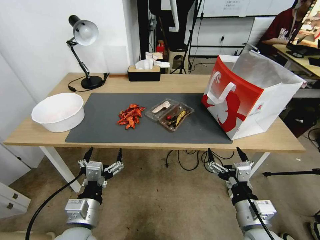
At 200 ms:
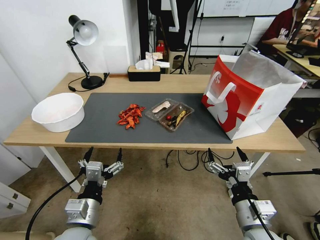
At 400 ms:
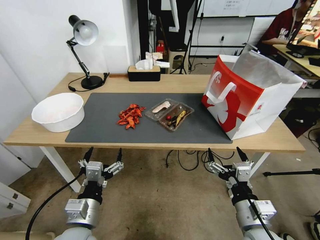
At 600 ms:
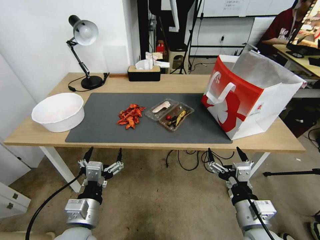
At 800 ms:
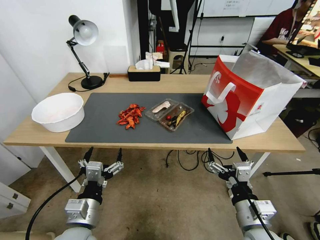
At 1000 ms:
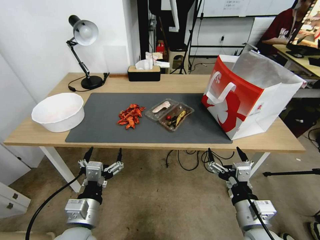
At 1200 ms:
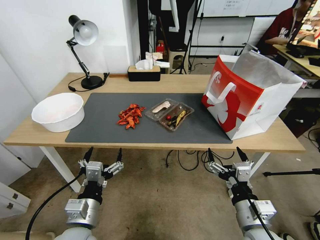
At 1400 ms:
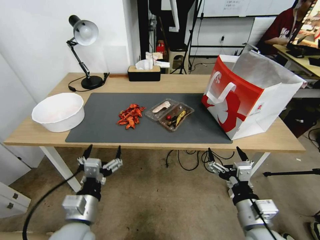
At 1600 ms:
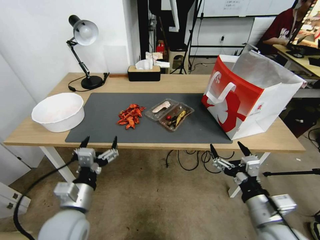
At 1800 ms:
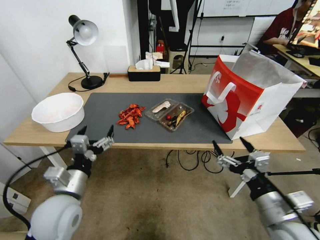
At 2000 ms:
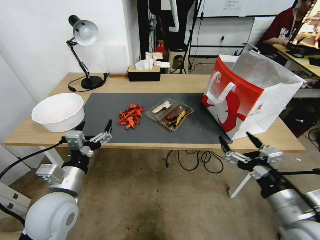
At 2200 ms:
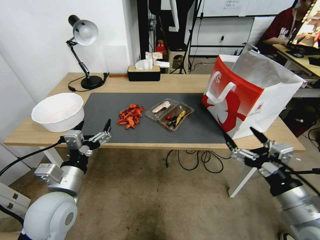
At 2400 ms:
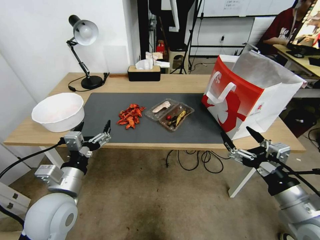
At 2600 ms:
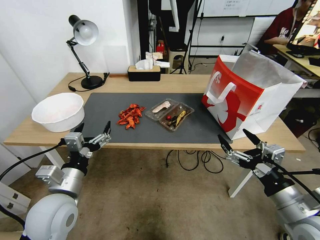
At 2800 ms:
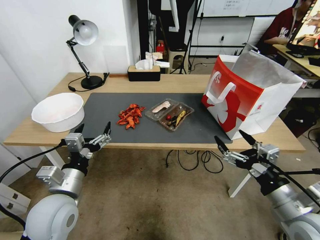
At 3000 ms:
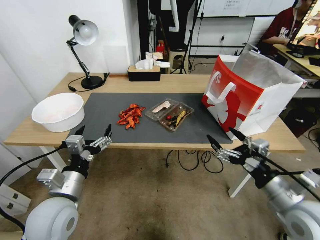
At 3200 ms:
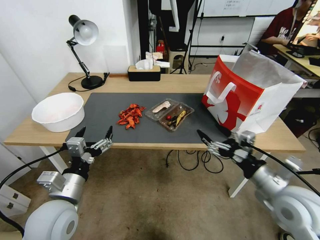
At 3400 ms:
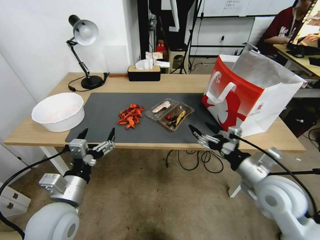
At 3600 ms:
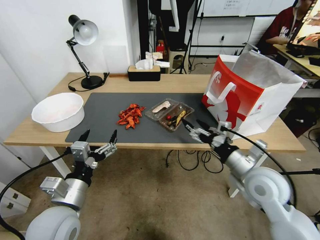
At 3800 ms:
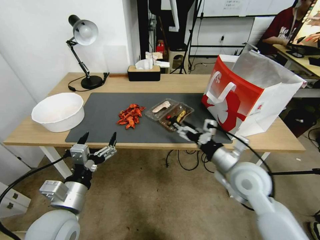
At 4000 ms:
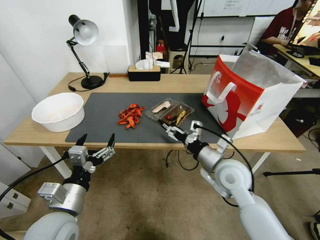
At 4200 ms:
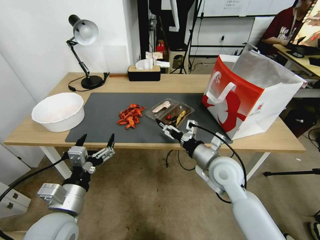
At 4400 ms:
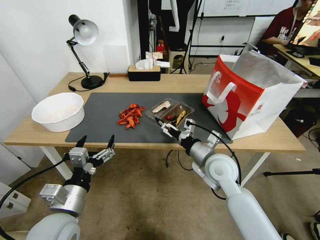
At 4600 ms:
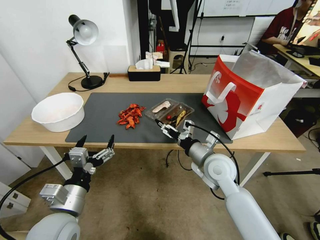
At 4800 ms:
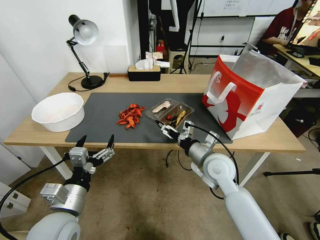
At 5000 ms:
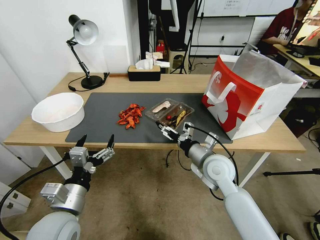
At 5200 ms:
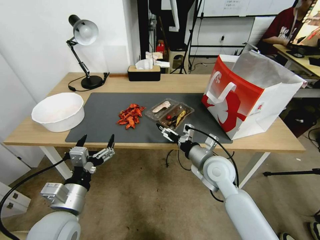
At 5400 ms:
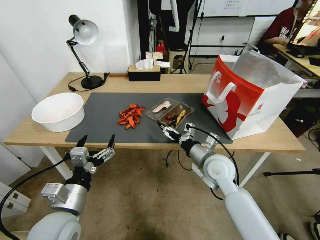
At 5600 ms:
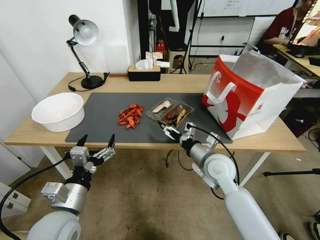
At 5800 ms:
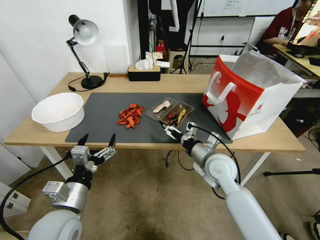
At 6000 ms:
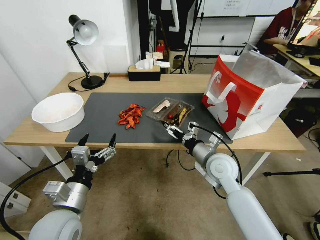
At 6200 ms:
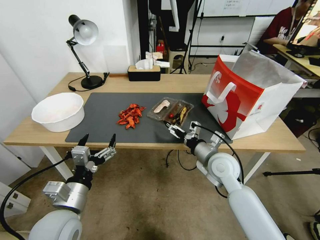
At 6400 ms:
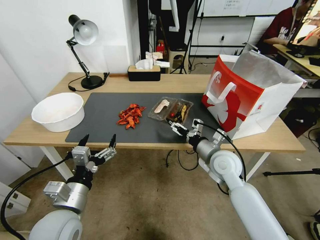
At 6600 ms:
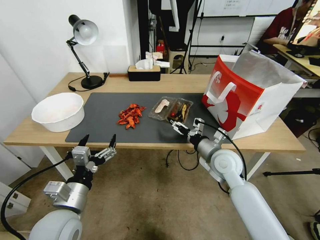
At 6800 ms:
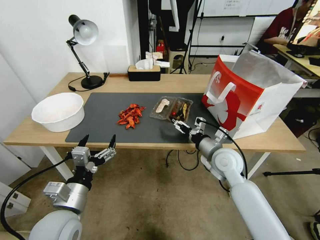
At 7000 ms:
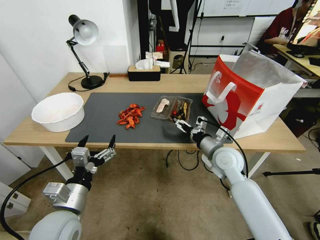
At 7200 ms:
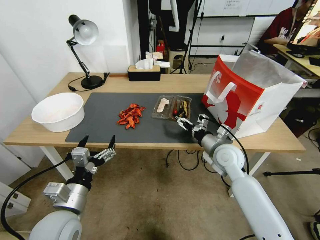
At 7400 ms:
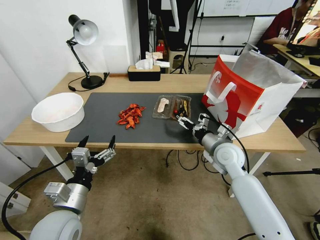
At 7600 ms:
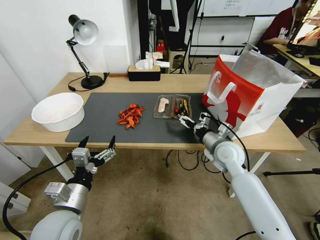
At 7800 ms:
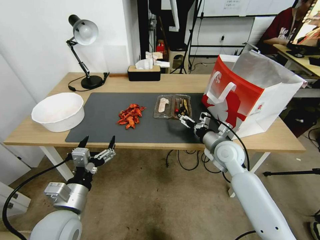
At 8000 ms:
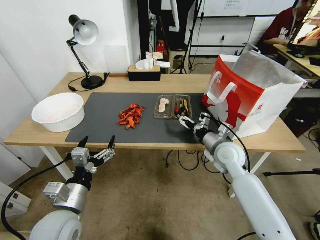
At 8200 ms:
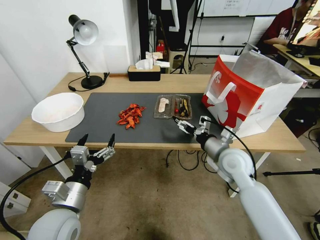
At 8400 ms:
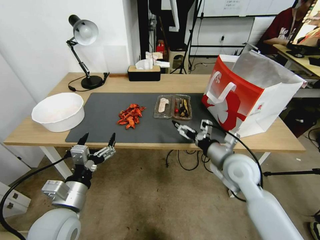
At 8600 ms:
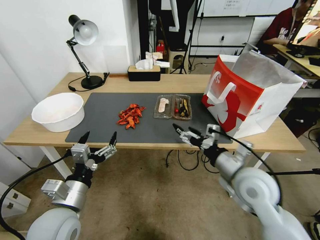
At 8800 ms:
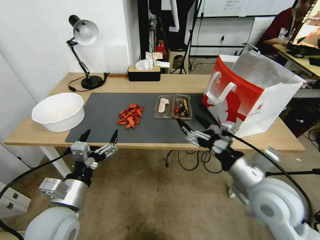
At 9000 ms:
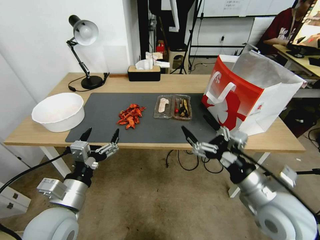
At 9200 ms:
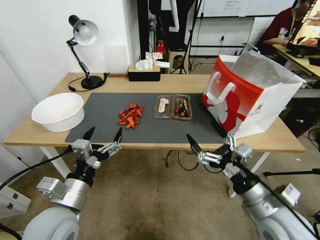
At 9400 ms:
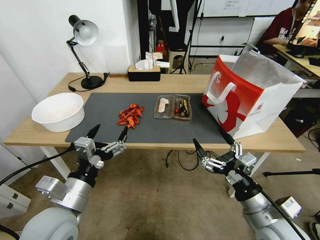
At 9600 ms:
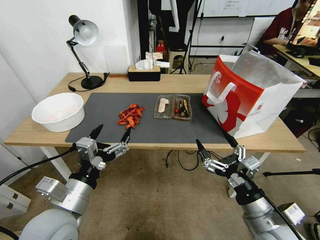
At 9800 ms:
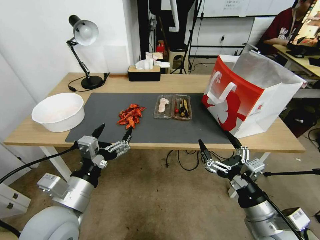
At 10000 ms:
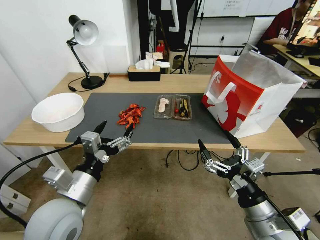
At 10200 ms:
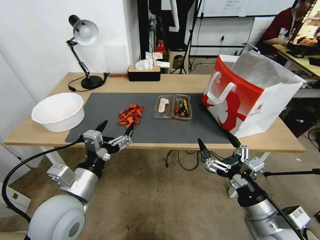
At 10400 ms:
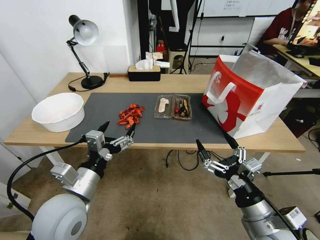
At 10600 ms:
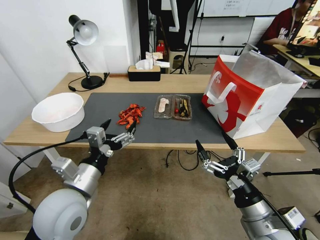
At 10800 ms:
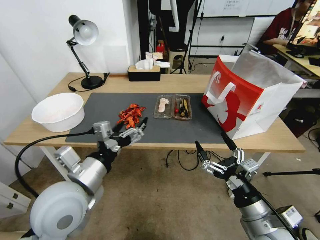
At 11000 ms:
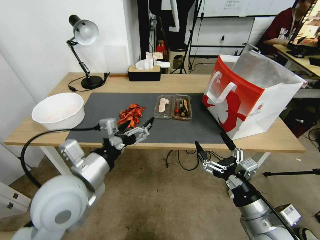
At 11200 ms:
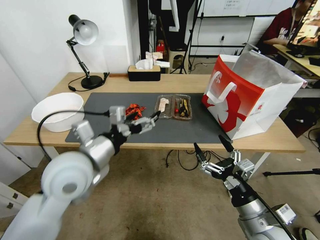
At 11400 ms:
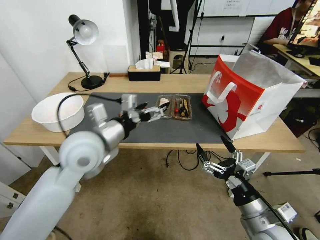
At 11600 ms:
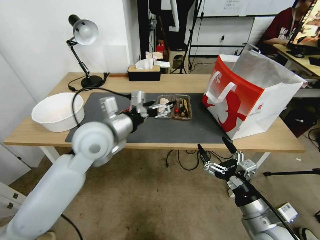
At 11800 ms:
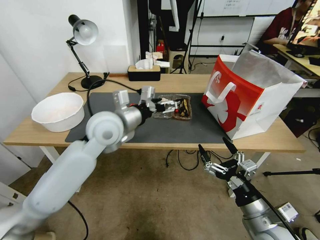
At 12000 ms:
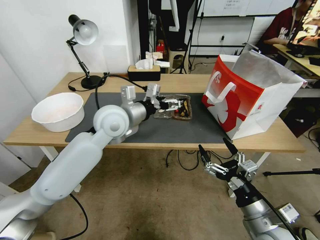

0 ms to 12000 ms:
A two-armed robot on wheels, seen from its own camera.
1600 ms to 3000 ms: The right gripper shifts roughly 5 cm to the right.
3000 ms to 4400 ms: The right gripper travels forward and to the left by approximately 20 cm.
4400 ms to 6000 ms: The grippers make only small movements.
6000 ms to 7600 ms: The right gripper moves roughly 5 cm.
7600 ms to 9000 ms: The right gripper shifts about 20 cm backward.
9000 ms to 10400 ms: The right gripper shifts about 5 cm backward.
10400 ms to 12000 ms: The left gripper shifts roughly 20 cm forward.

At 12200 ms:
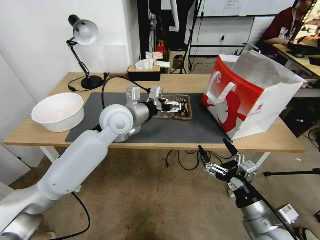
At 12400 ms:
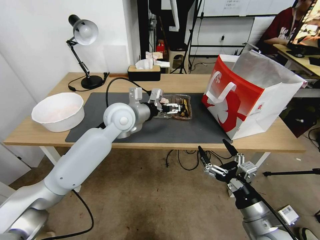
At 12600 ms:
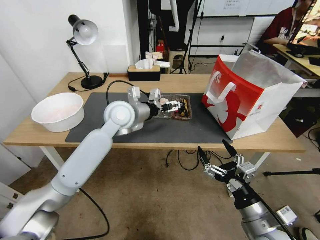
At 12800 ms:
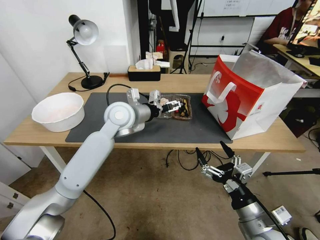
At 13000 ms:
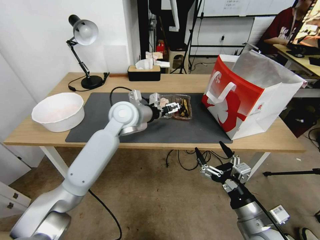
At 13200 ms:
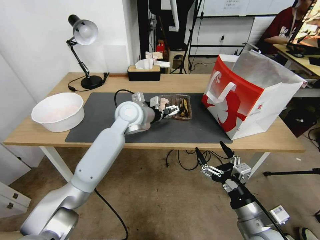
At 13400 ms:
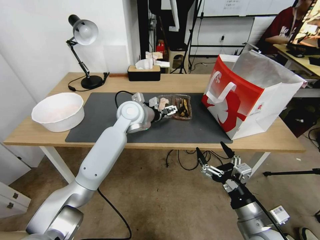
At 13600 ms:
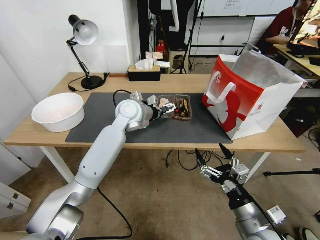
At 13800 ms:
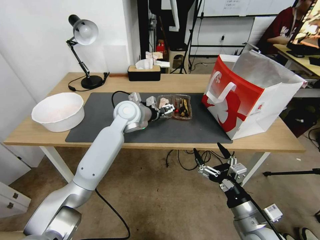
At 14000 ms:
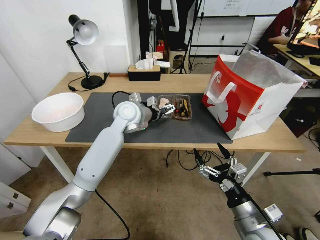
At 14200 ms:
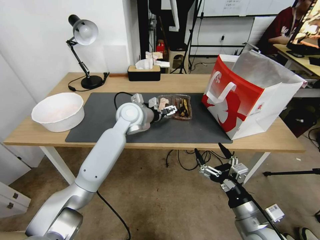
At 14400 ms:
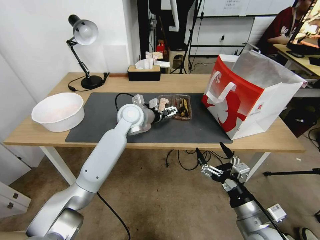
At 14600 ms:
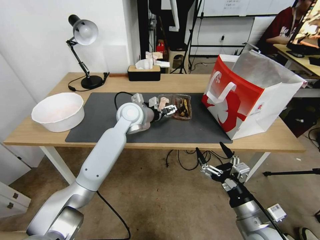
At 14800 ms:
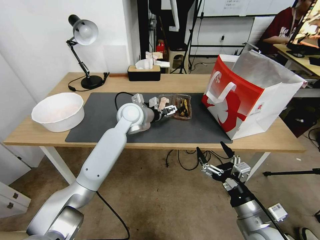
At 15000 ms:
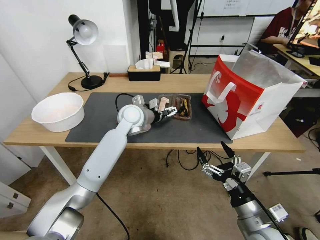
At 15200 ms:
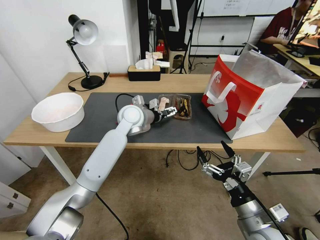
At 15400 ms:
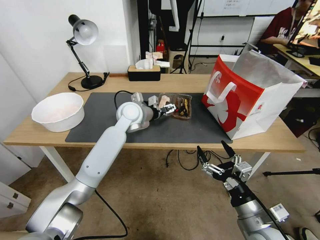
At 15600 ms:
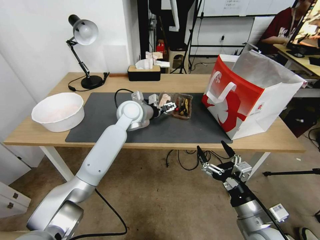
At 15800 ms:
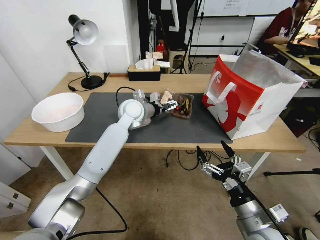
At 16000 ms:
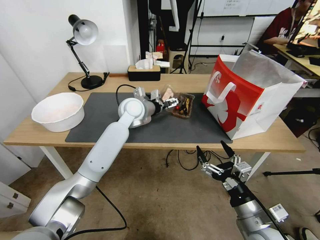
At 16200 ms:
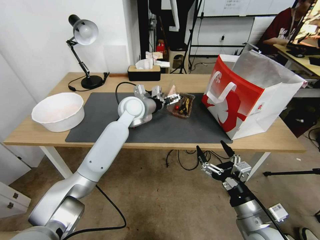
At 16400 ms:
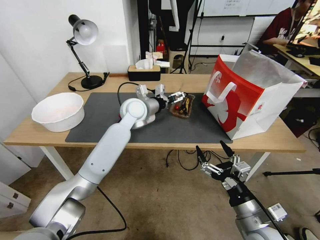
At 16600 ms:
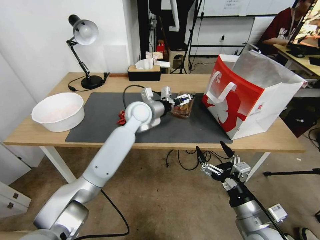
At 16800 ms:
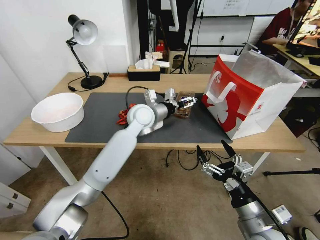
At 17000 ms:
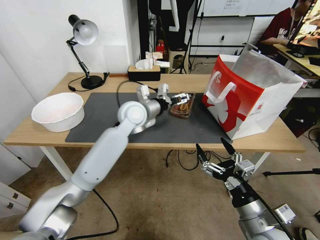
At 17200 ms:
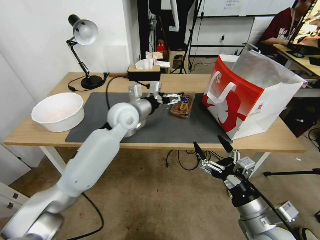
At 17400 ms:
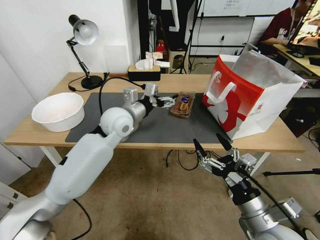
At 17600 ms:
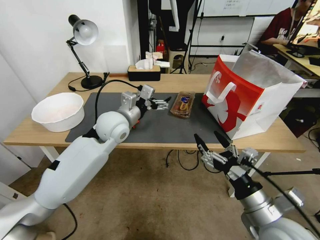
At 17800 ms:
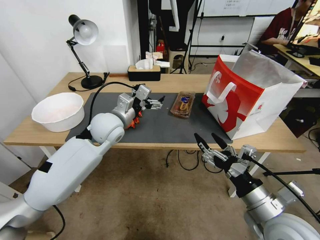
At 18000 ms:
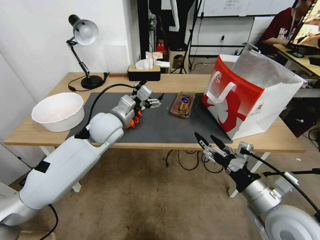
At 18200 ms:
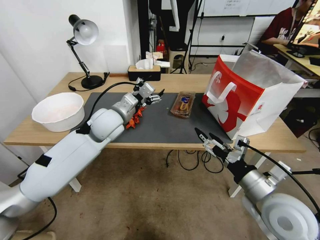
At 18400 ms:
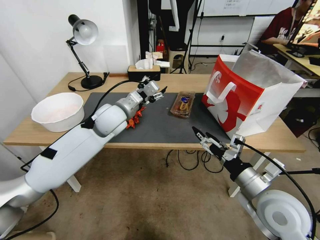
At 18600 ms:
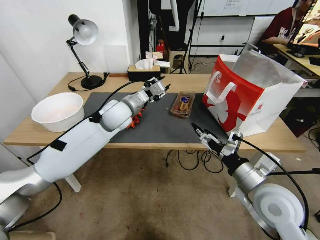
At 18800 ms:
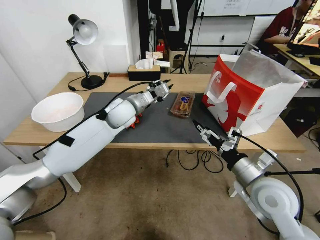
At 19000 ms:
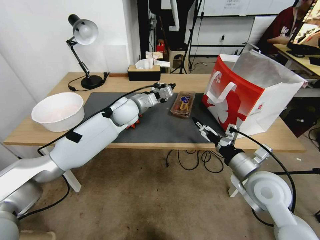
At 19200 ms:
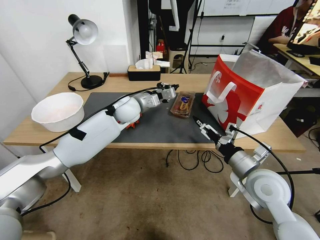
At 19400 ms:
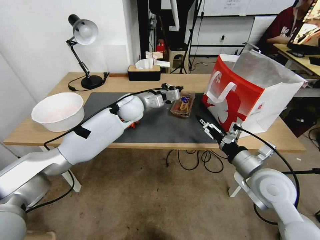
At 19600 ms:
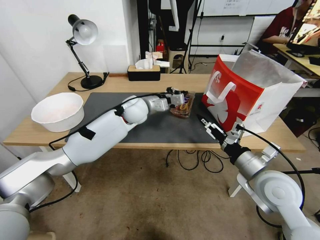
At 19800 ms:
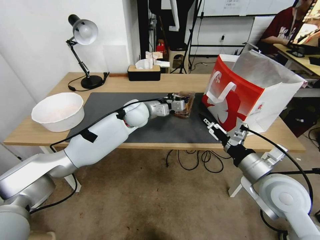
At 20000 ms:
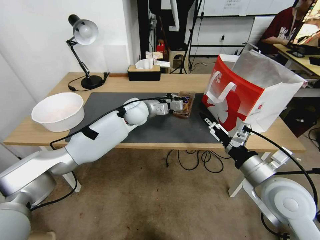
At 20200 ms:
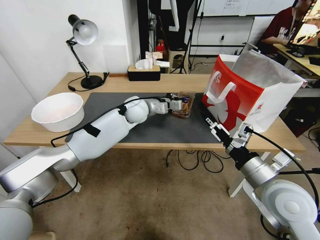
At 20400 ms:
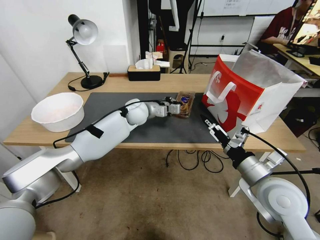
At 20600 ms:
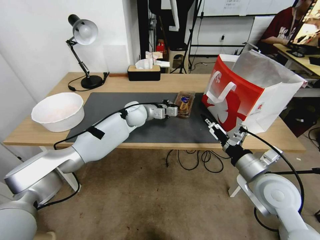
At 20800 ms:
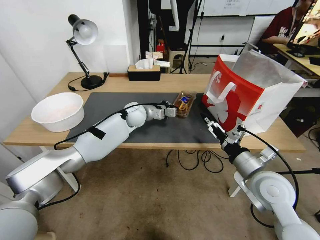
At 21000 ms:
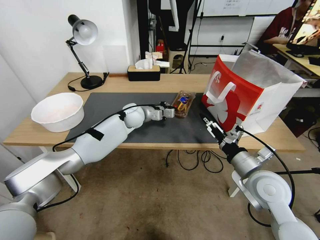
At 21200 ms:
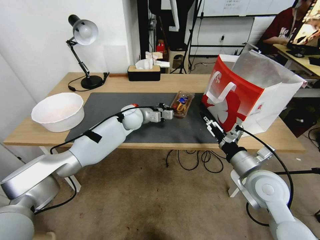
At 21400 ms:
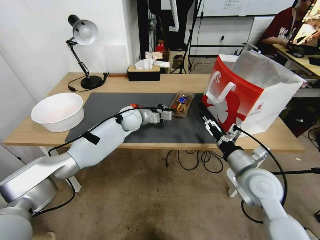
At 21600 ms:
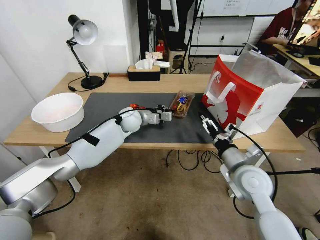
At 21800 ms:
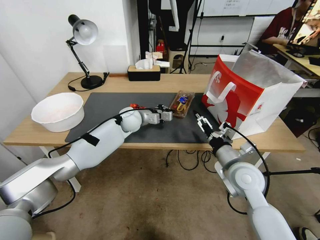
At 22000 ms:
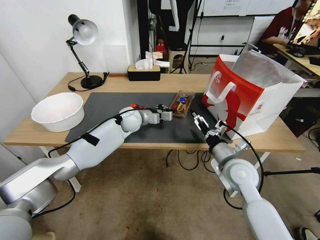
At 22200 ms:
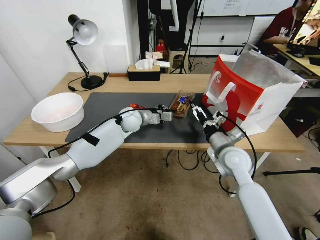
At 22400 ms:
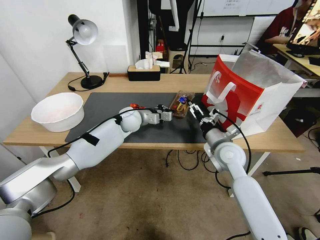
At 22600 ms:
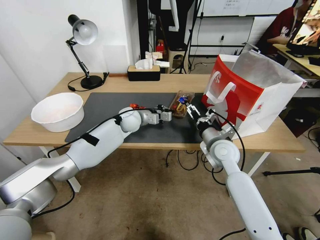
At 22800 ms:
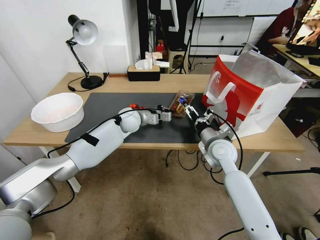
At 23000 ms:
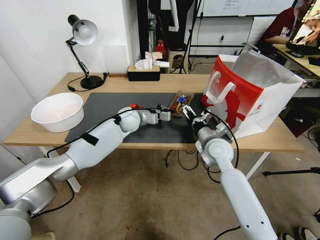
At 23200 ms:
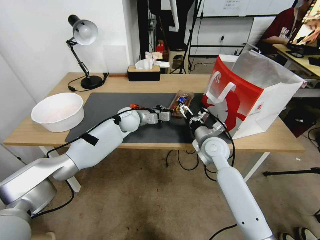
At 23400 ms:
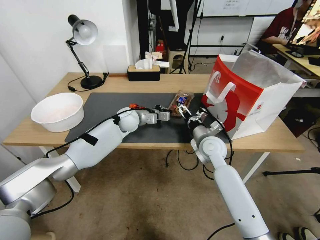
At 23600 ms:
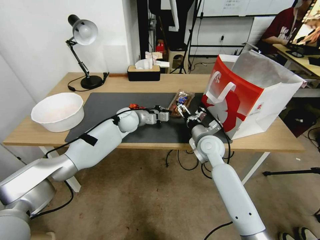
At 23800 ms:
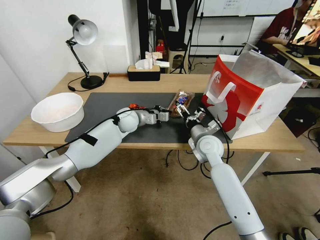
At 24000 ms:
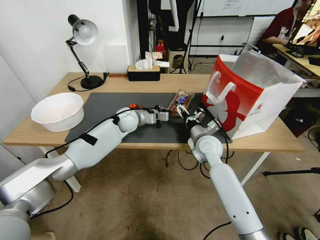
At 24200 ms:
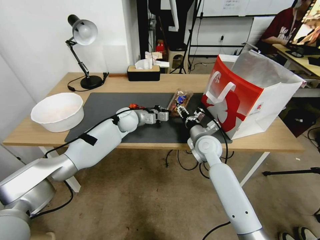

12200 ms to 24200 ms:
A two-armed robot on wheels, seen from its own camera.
12200 ms to 13800 ms: The left gripper goes roughly 5 cm forward.
13800 ms to 15200 ms: The grippers stay close to where they were, moving slightly.
15200 ms to 16600 ms: The grippers move only a little.
16600 ms to 18200 ms: The right gripper heads upward, covering some 10 cm. The left gripper is displaced to the left and backward by roughly 10 cm.
18200 ms to 19800 ms: The left gripper moves forward and to the right, some 10 cm, and closes up.
19800 ms to 21200 ms: The left gripper goes about 5 cm downward.
21200 ms to 22600 ms: The right gripper goes approximately 15 cm forward and to the left.
22600 ms to 24200 ms: The right gripper moves roughly 5 cm.
